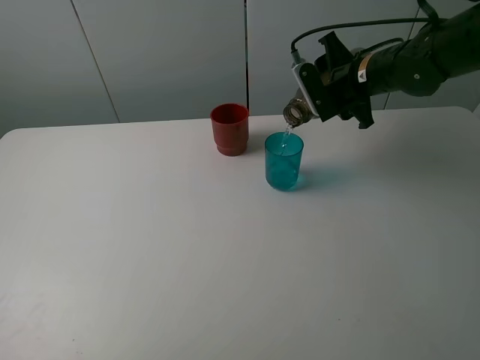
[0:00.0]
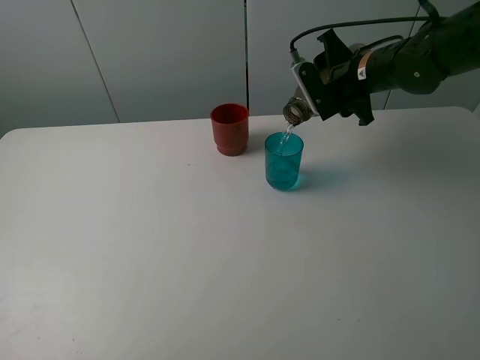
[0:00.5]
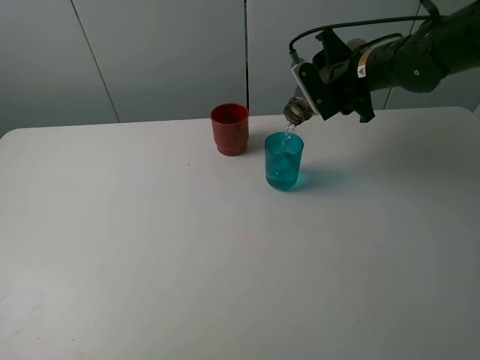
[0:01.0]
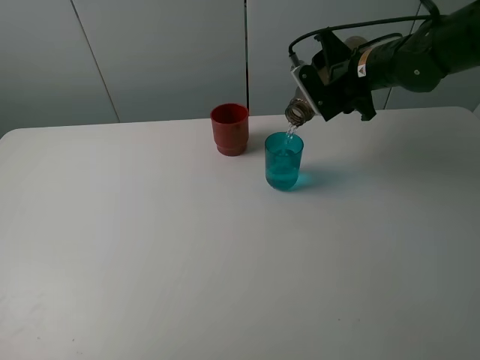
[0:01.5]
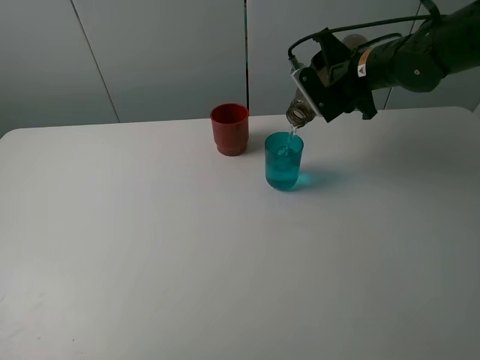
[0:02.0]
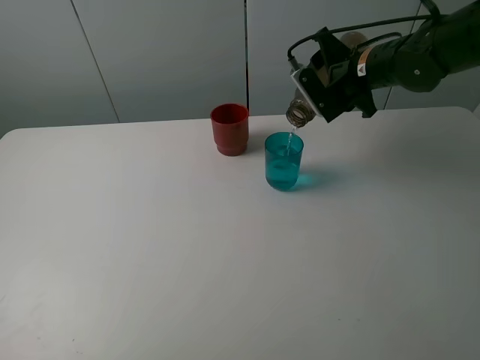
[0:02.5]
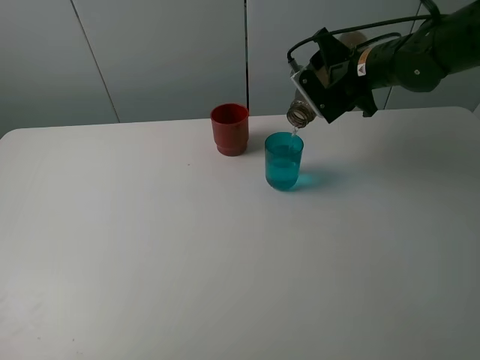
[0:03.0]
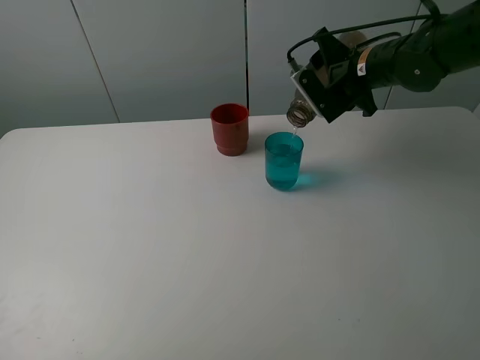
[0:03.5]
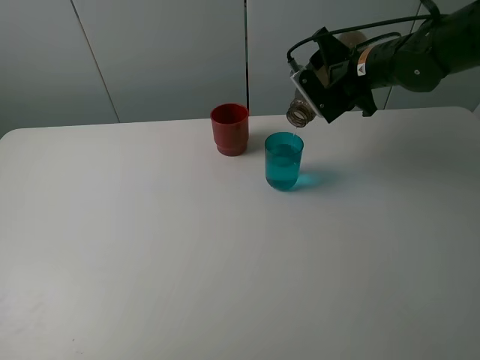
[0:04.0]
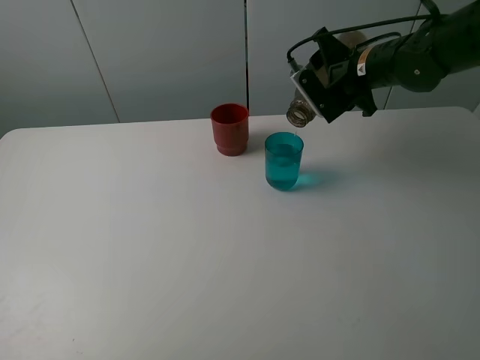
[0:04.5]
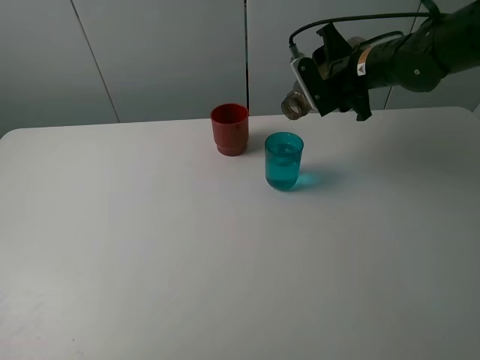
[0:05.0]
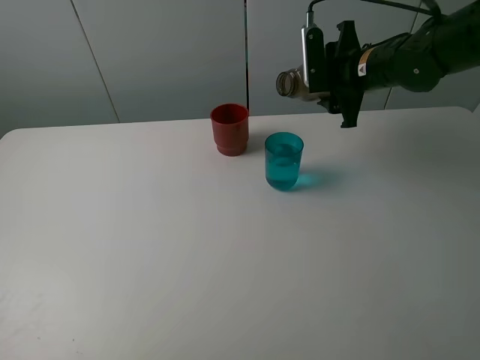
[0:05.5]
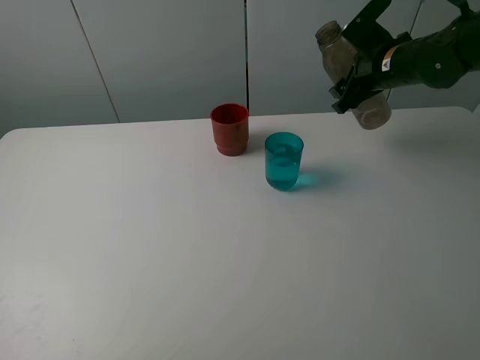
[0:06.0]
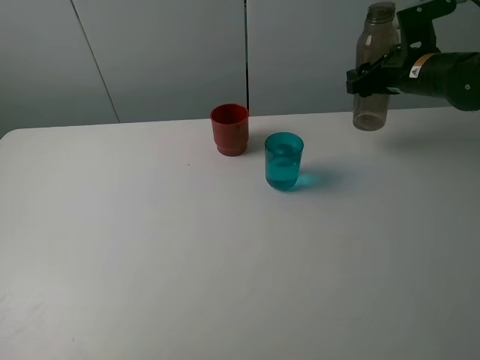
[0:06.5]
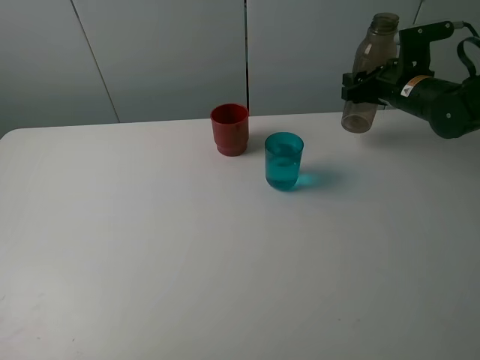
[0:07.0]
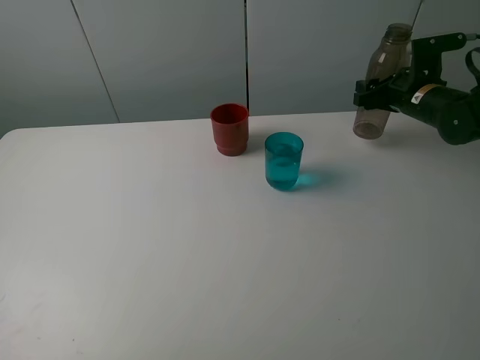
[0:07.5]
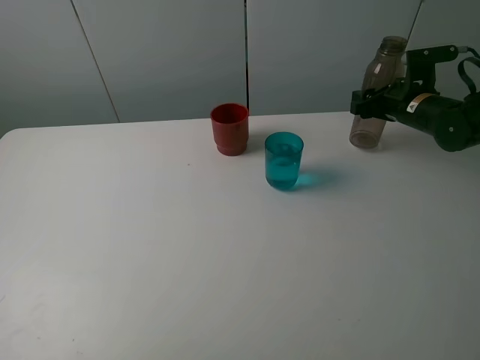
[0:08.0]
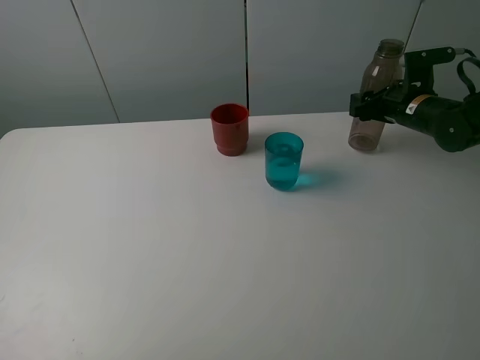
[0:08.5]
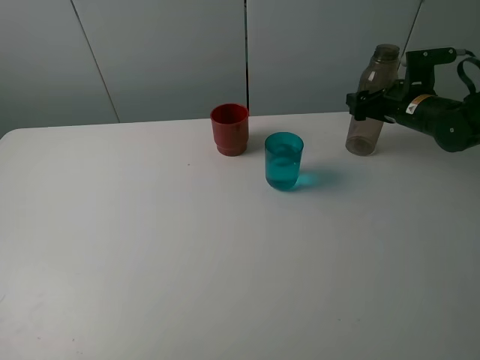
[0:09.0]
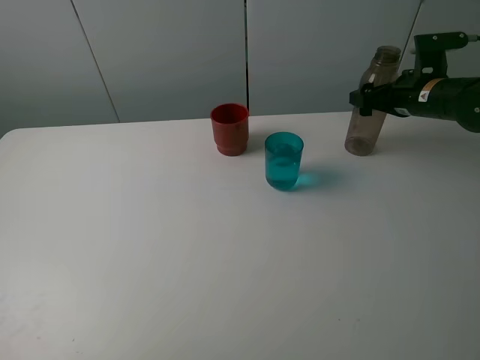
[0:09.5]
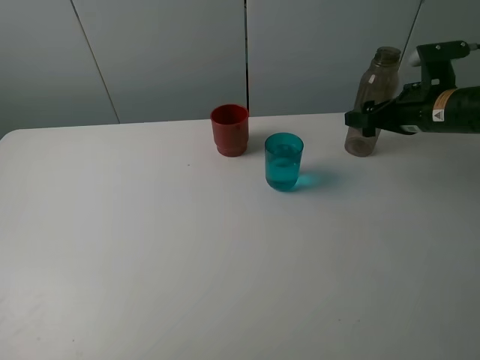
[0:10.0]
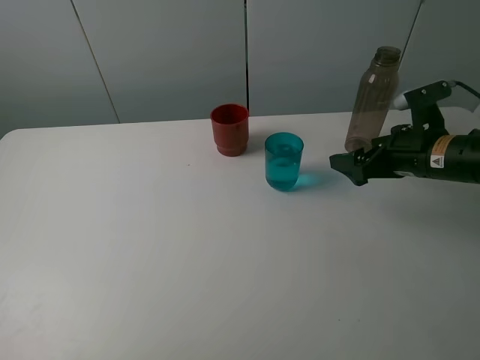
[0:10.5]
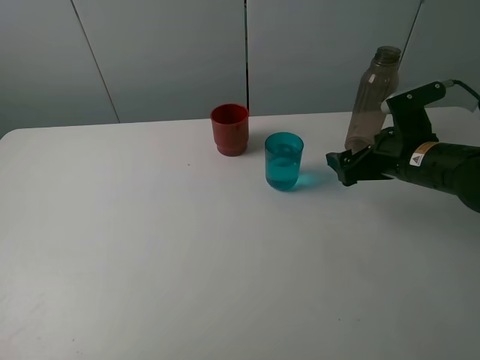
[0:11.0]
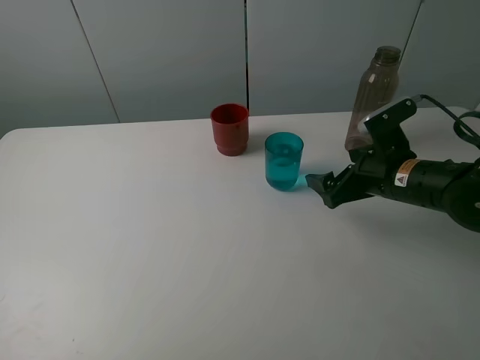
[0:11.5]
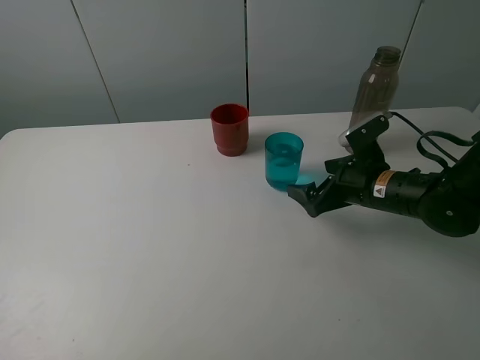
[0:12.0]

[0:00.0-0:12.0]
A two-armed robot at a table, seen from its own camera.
Task of the whole recording: pick up the bottle and pour water into the cup, then pick up the cup containing water and pour it into another cup.
Step, 0:00.0 to 0:05.0: Pour water from brown bottle to blue cup with the right gripper.
Step, 0:05.5 to 0:09.0: Place the brown bottle with the right gripper.
0:00.0 to 0:02.0: There are only small adjustments of the grippers.
0:02.0 to 0:04.0: The two grippers keep their place.
0:06.0 to 0:08.0: The right gripper is displaced downward and to the right by about 10 cm.
0:08.0 to 0:10.0: The right gripper travels backward by some 10 cm, and opens up.
0:10.0 to 0:12.0: The right gripper shifts about 15 cm downward, to the left and backward.

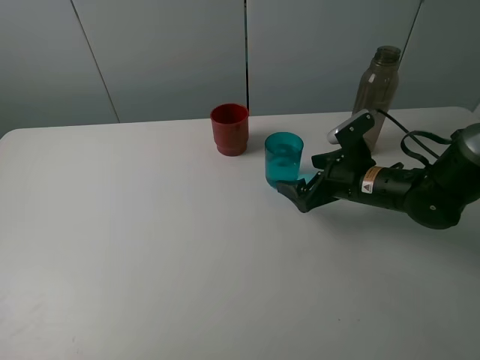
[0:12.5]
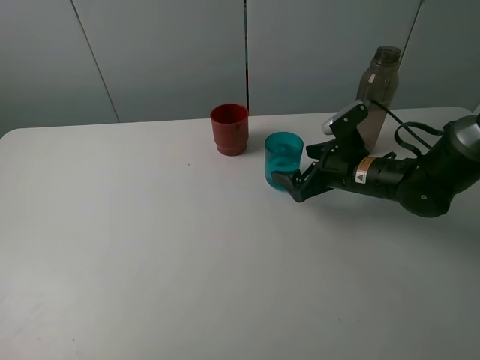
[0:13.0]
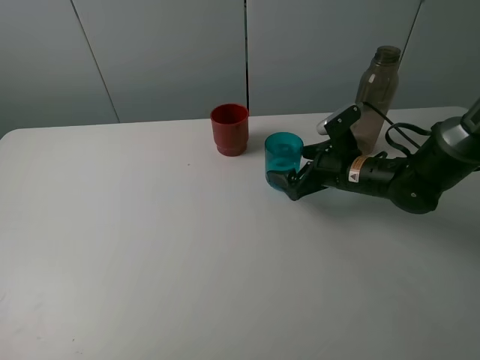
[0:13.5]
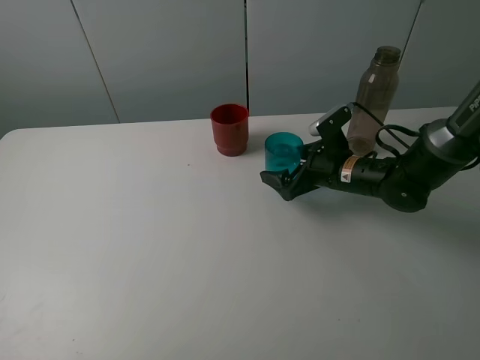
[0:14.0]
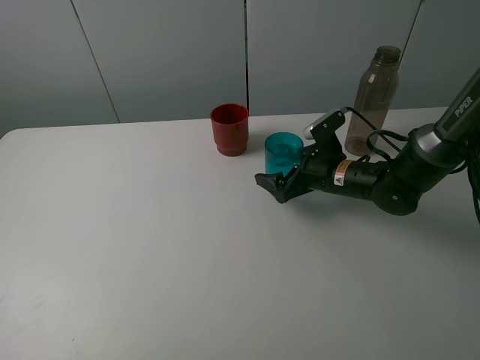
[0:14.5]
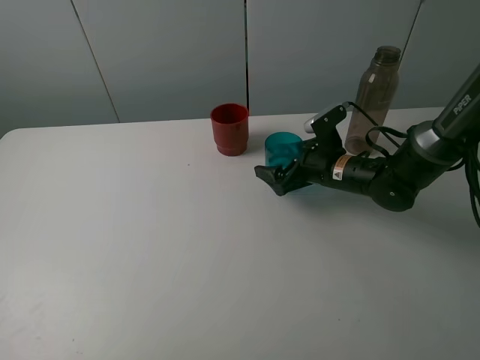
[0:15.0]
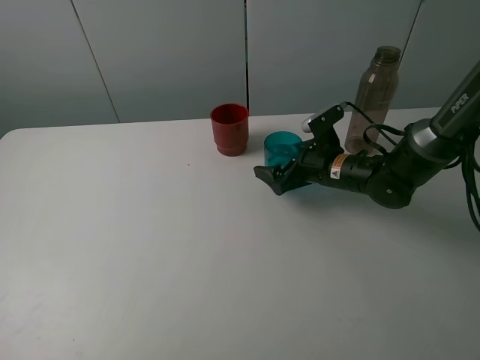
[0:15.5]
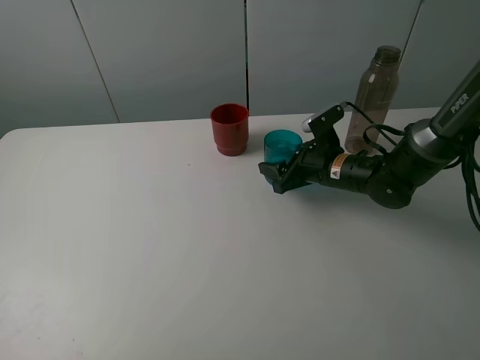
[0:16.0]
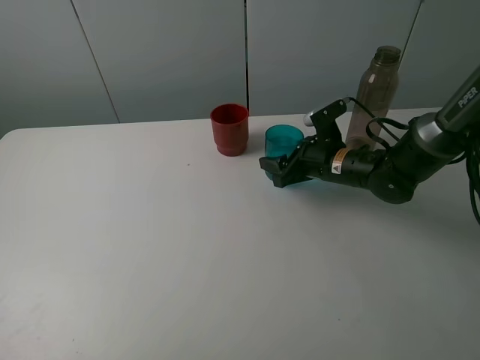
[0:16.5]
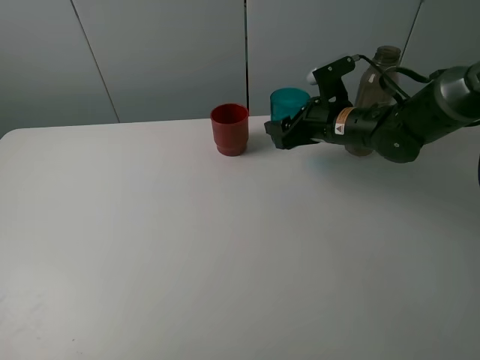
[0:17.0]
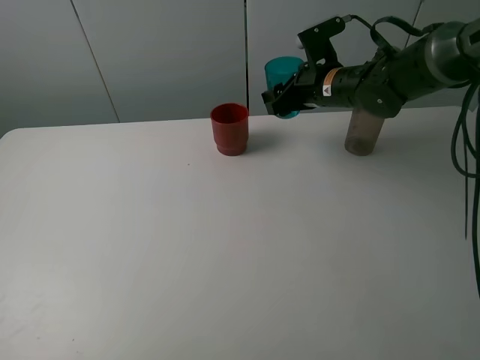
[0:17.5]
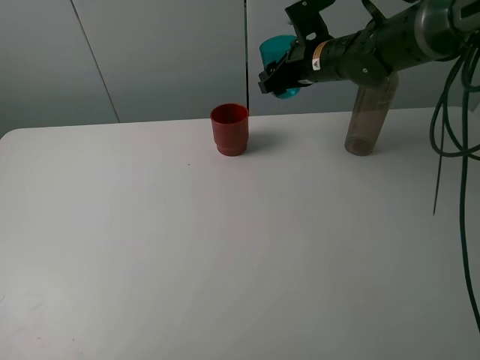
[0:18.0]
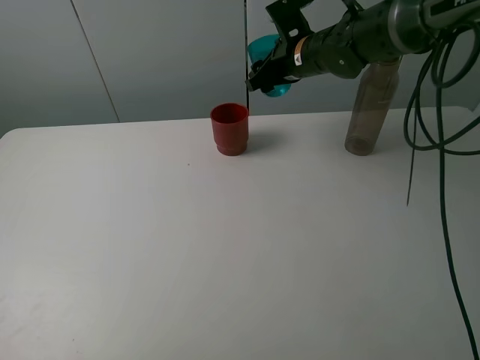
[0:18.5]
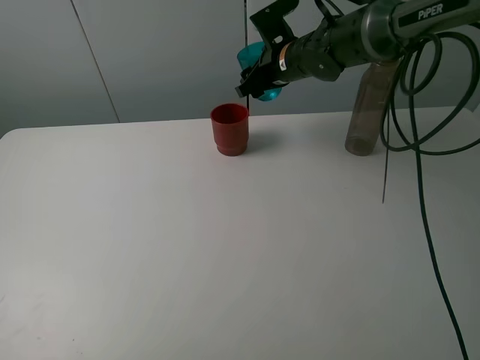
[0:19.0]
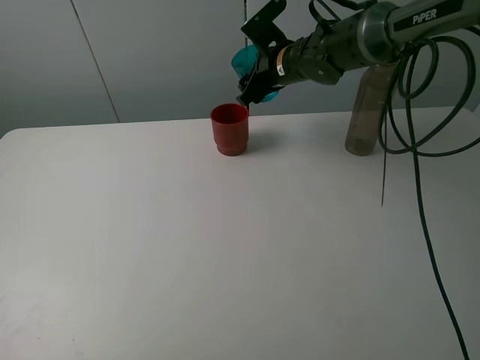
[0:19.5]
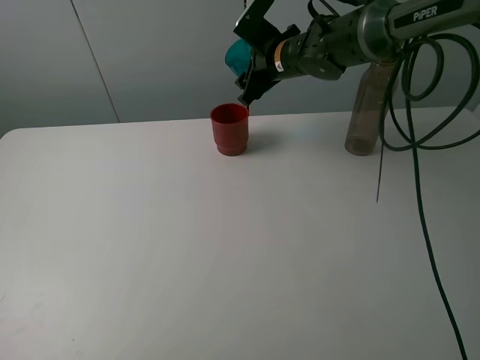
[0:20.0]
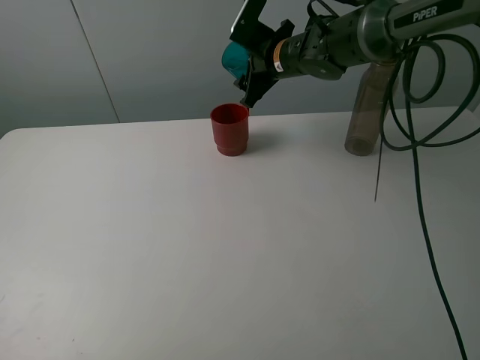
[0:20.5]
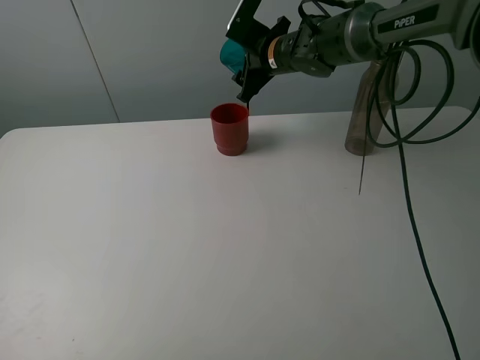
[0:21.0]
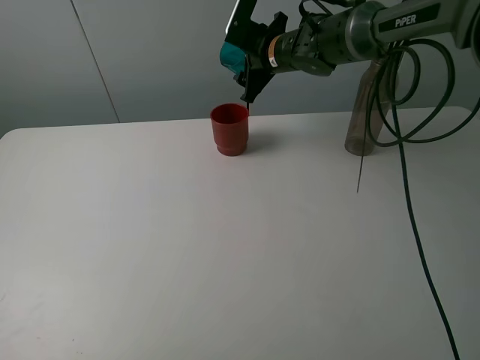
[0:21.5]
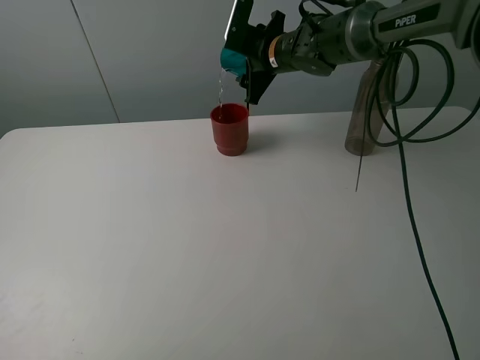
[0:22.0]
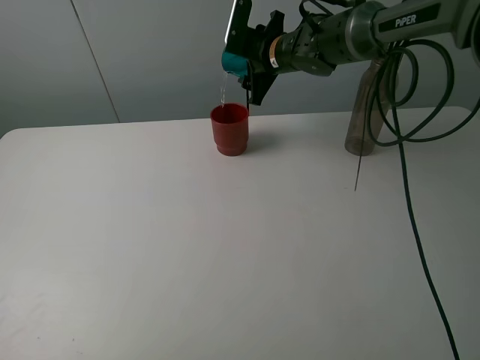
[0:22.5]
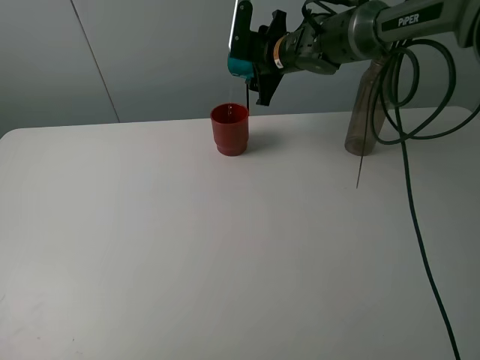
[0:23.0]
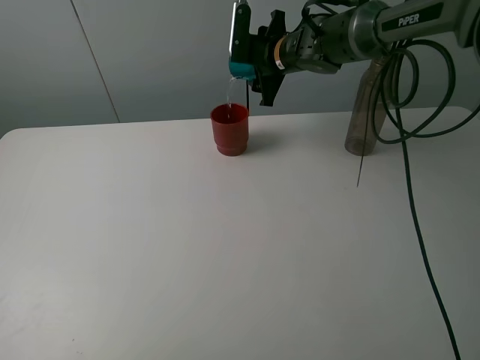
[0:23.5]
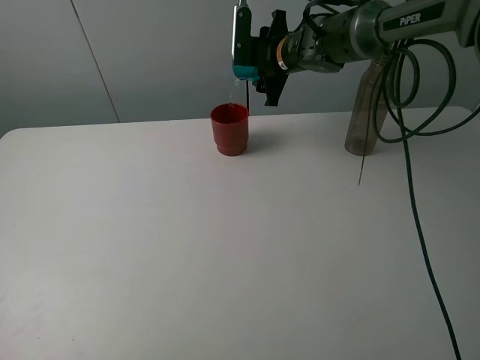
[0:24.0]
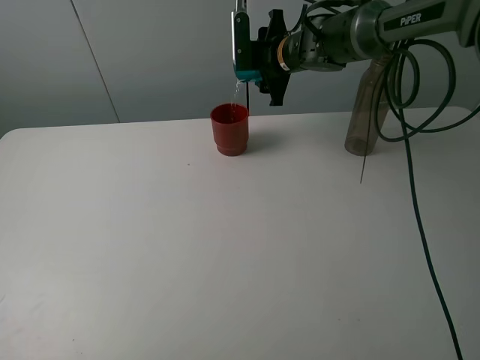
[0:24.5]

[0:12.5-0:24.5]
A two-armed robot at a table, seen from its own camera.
Task of the whole recording: pick up the bottle and pour water into the cup, then pick up the cup containing water and pour it into another cup.
Step, 0:12.5 to 0:16.0: Grasp the blue cup with the right gripper.
0:12.5 to 0:14.5: The right gripper ends up approximately 5 cm from where it was.
0:14.5 to 0:16.5: The right gripper closes its fingers.
0:16.5 to 0:18.5: The right gripper moves upward, forward and to the left, approximately 15 cm.
0:20.5 to 0:22.5: The grippers move only a little.
0:22.5 to 0:24.5: The grippers stay close to where they were, moving slightly.

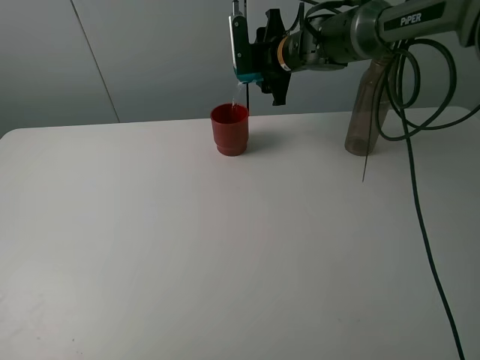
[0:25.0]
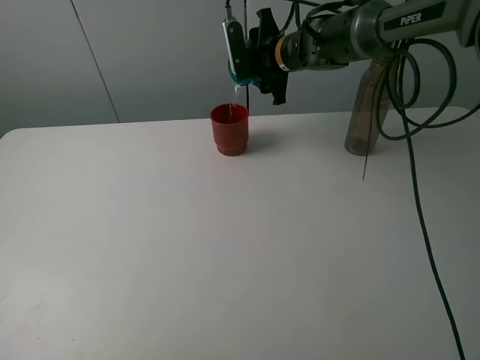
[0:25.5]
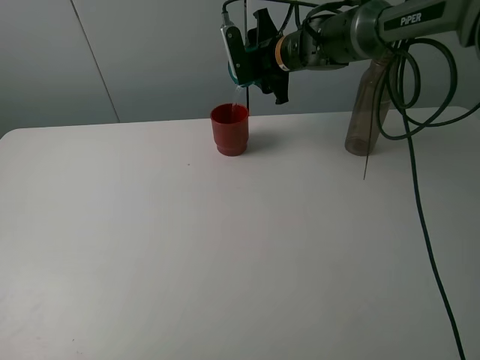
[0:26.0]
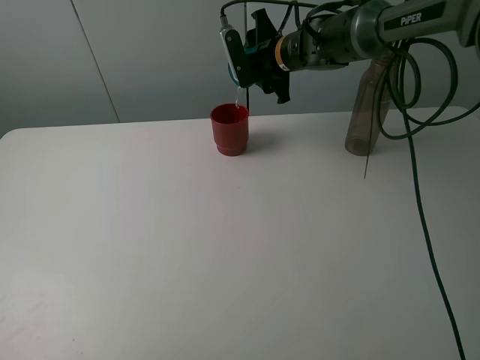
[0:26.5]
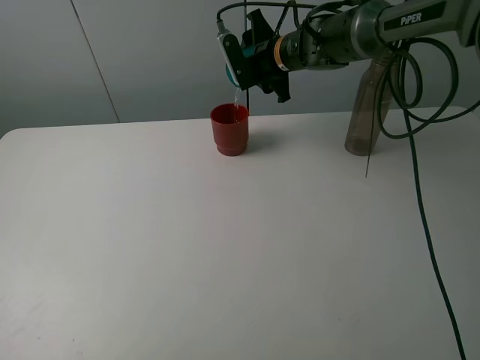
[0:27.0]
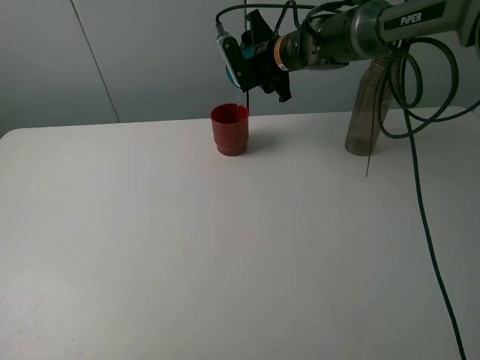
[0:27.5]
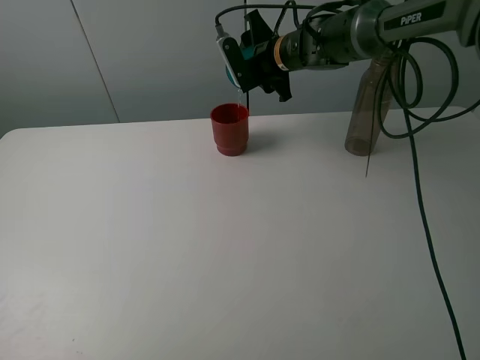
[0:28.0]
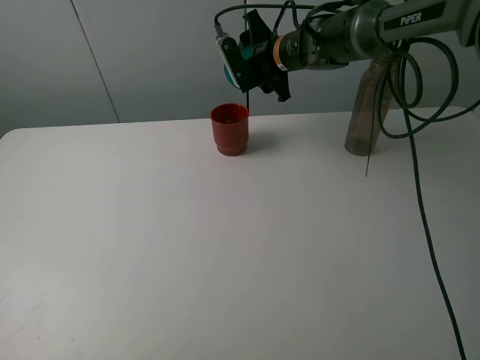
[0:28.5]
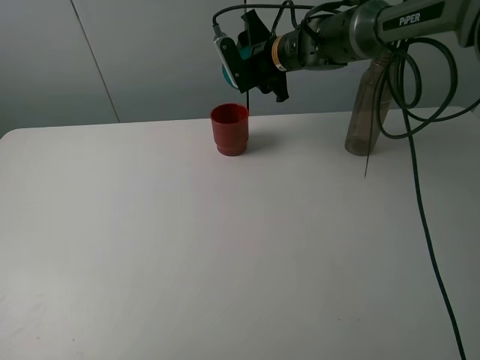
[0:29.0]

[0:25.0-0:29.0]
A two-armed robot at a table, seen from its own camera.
Task of the whole recording: pick up the bottle and pour water into the cup, then pick up the cup containing water and pour it into another cup.
0:25.0 to 0:27.0: There are only small adjustments of the grippers.
0:27.0 to 0:29.0: The two grippers keep their place.
